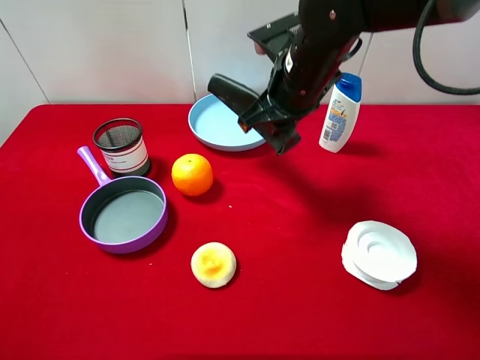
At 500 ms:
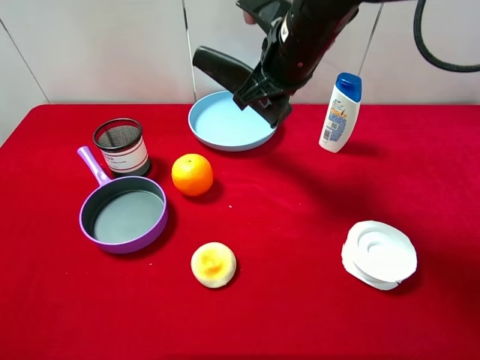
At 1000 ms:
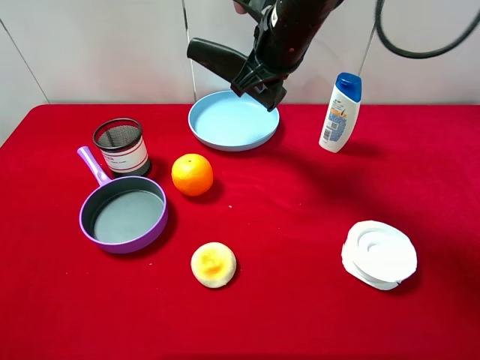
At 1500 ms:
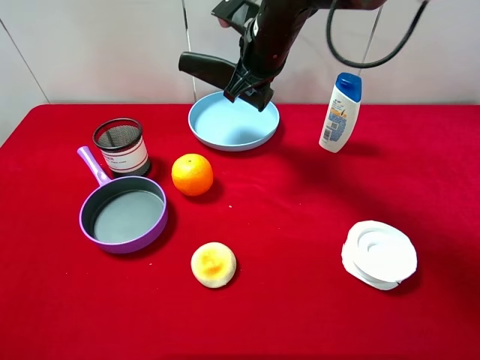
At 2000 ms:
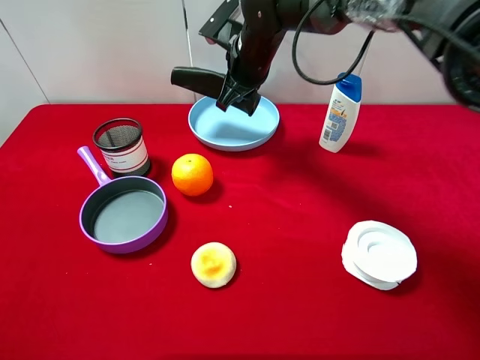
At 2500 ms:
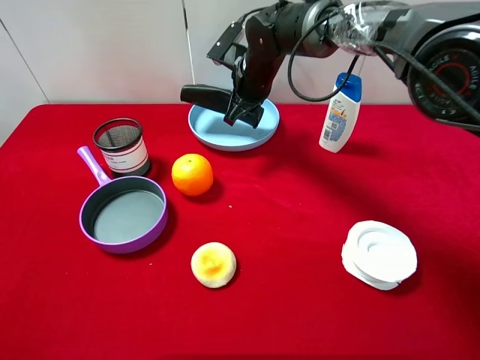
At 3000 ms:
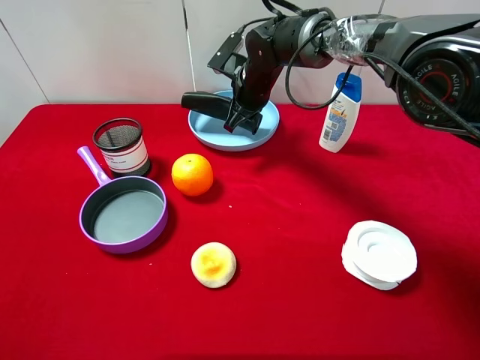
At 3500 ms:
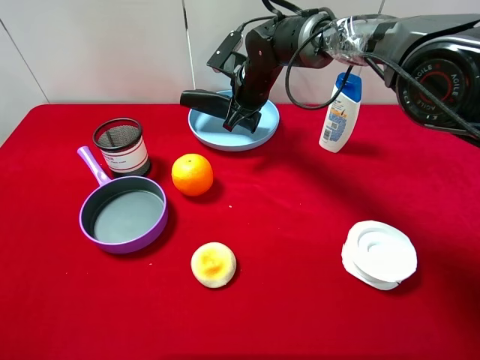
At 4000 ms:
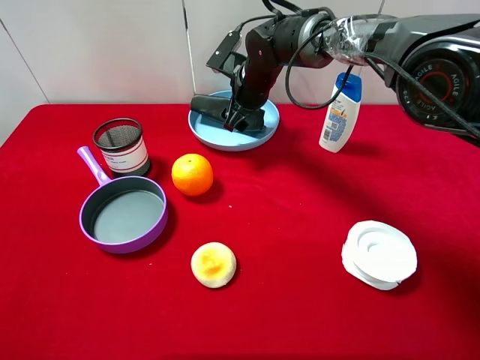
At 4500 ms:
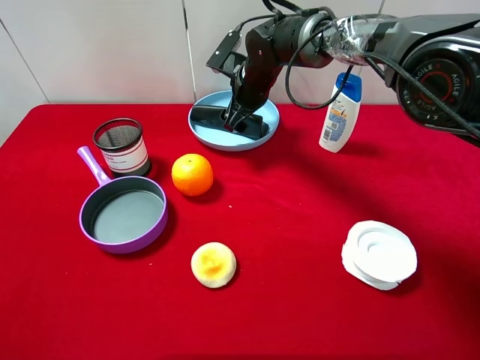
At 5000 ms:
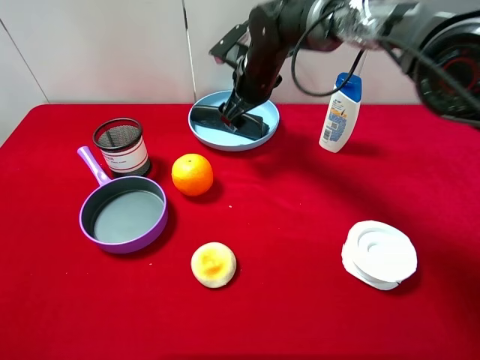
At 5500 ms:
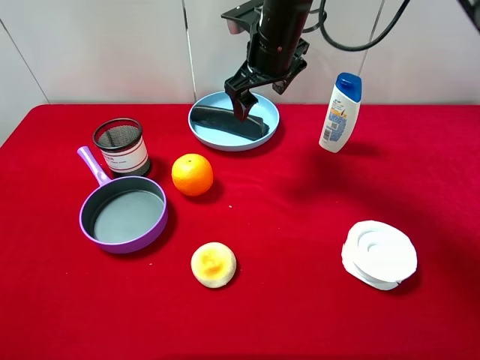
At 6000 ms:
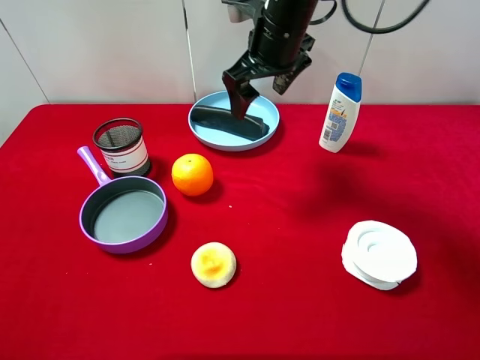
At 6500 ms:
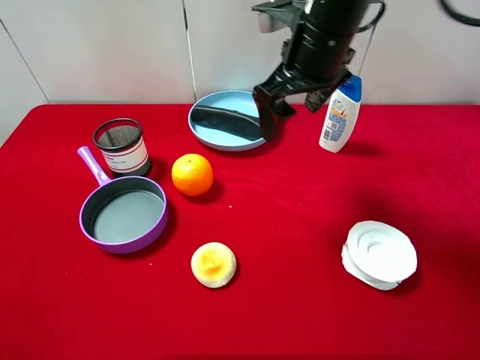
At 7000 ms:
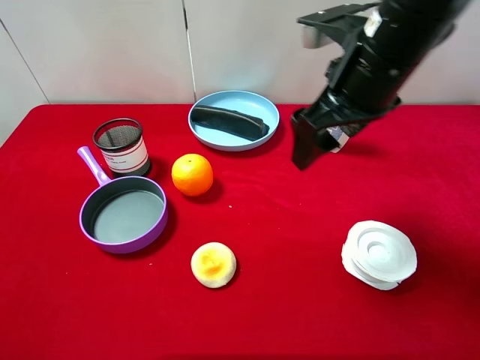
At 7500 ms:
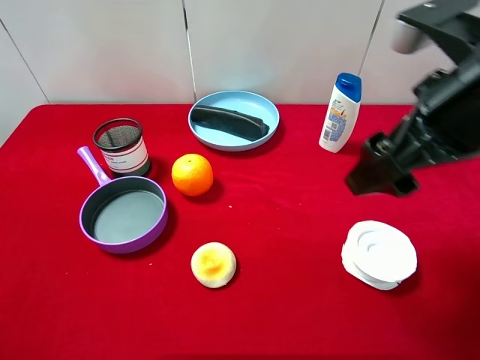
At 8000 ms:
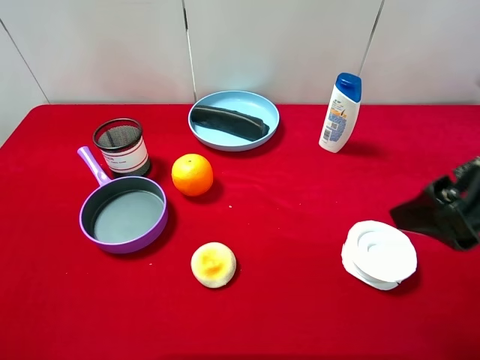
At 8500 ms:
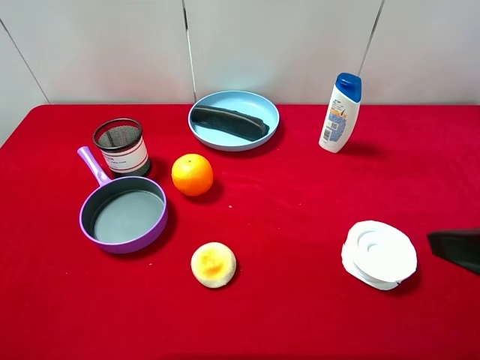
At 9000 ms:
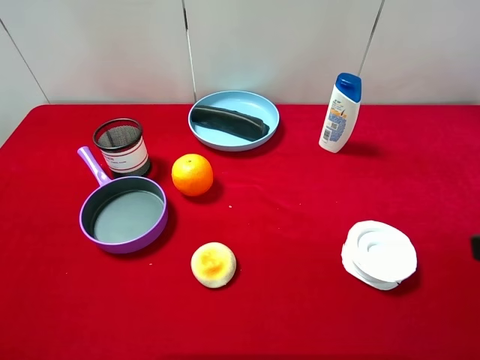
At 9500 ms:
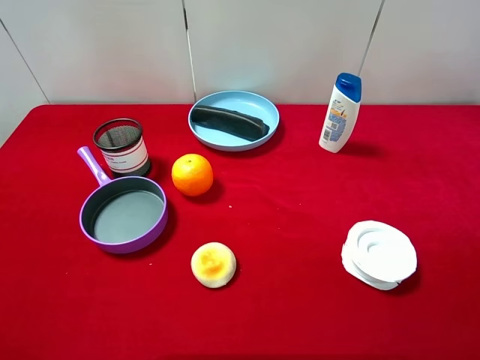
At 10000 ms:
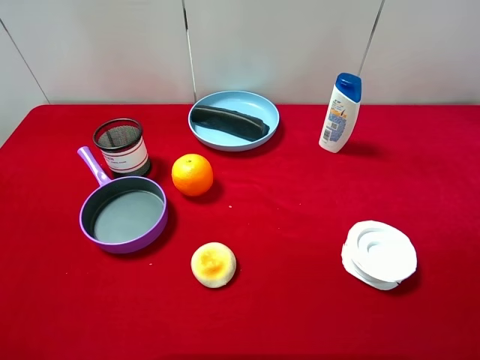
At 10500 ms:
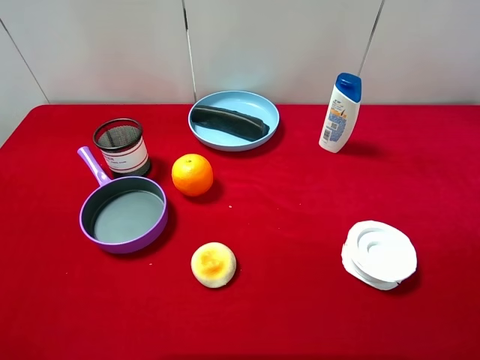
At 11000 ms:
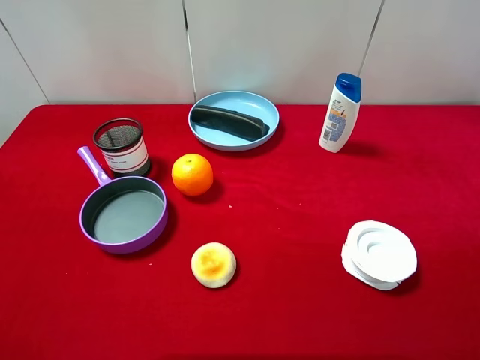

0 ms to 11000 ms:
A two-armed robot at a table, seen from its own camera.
Task of the whole recording: pick up an item with a gripper and place it in a random container on the desktop.
0 ms to 2000 ms: The right gripper shifts approximately 10 cm forward and to the left.
2000 ms to 3500 ms: The right gripper goes some 5 cm downward.
3500 ms to 5500 ms: The right gripper heads upward and backward, covering about 10 cm, and opens up.
5500 ms to 7500 ms: The right gripper moves backward and to the right, some 25 cm.
7500 ms to 9000 ms: The right gripper goes about 15 cm backward and to the right.
